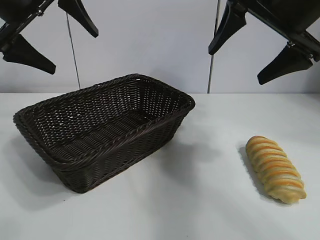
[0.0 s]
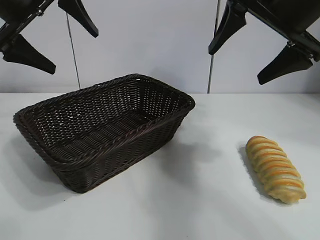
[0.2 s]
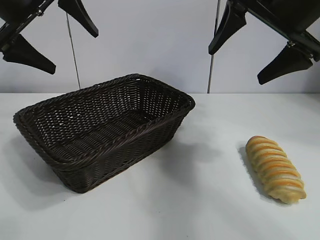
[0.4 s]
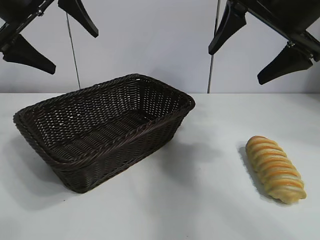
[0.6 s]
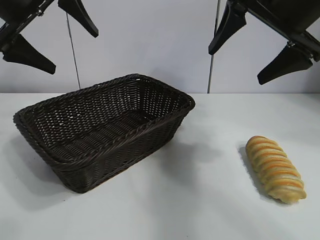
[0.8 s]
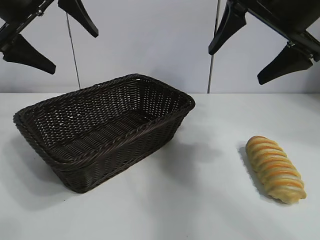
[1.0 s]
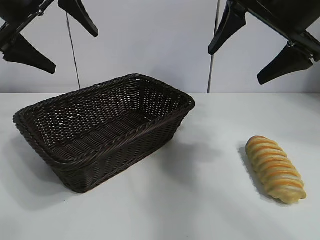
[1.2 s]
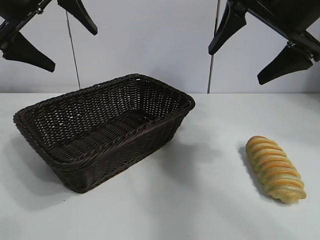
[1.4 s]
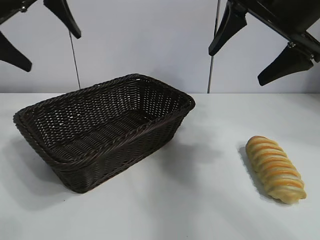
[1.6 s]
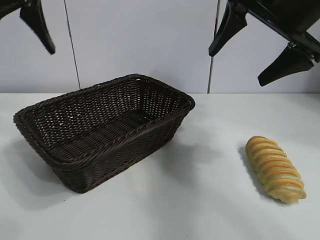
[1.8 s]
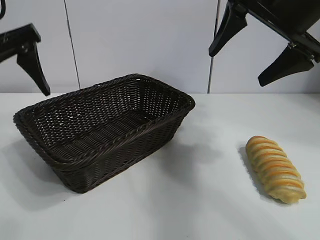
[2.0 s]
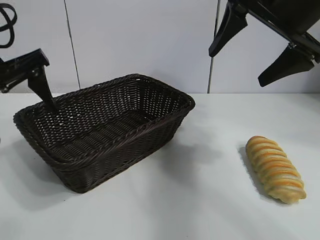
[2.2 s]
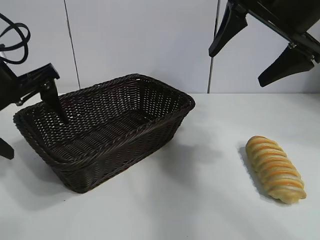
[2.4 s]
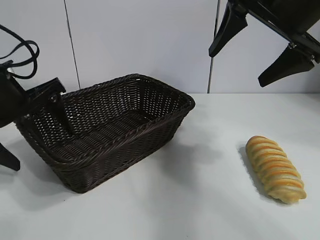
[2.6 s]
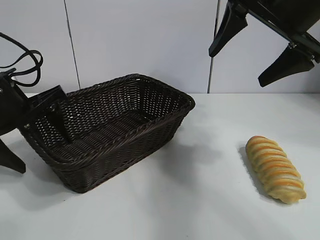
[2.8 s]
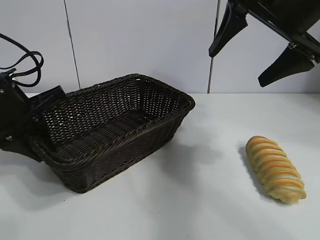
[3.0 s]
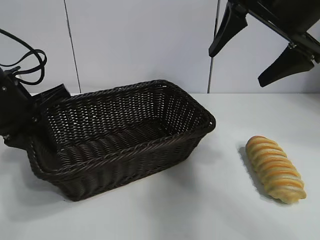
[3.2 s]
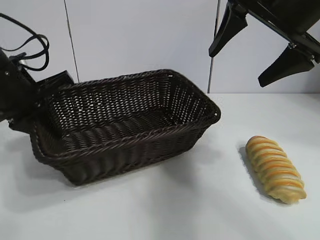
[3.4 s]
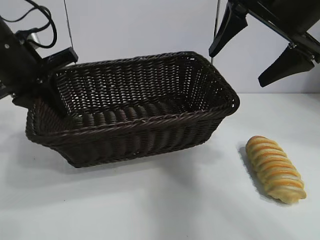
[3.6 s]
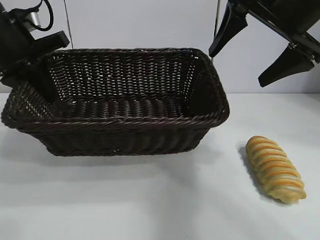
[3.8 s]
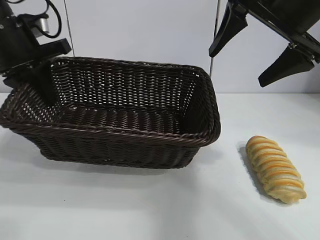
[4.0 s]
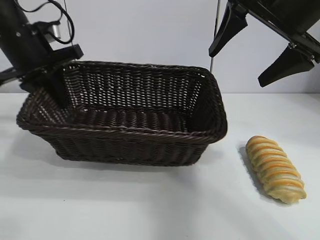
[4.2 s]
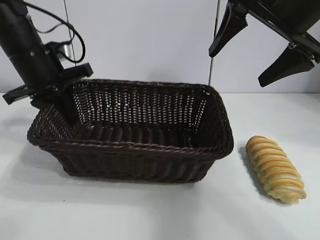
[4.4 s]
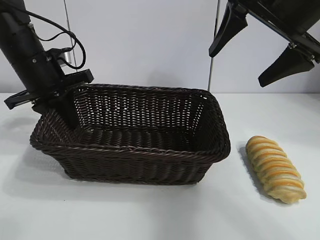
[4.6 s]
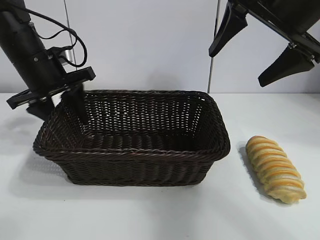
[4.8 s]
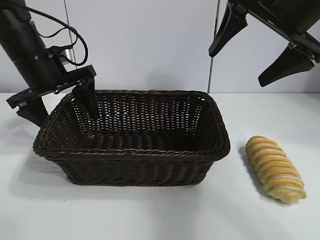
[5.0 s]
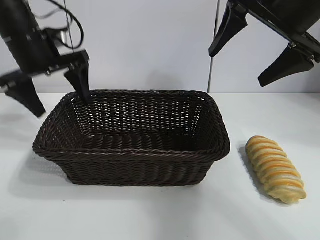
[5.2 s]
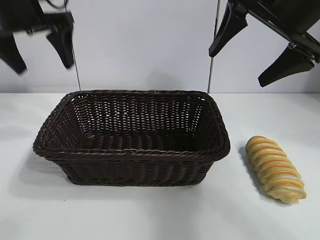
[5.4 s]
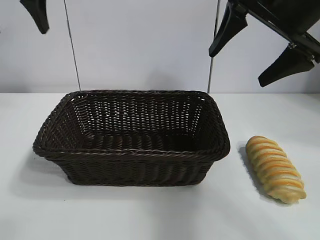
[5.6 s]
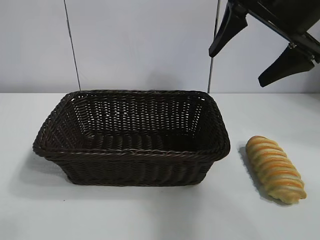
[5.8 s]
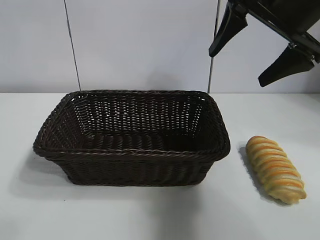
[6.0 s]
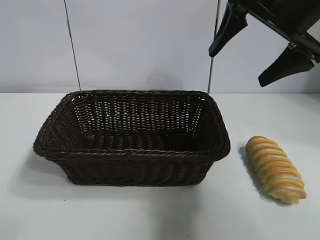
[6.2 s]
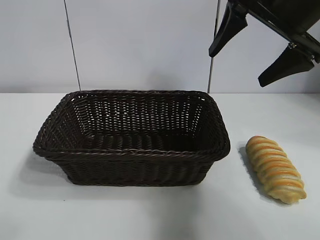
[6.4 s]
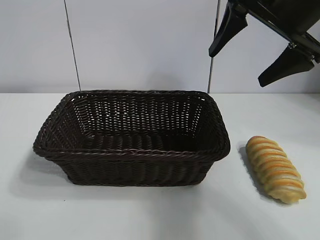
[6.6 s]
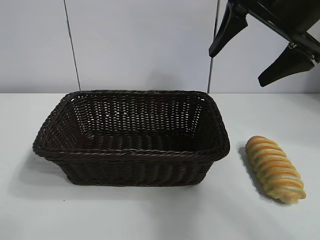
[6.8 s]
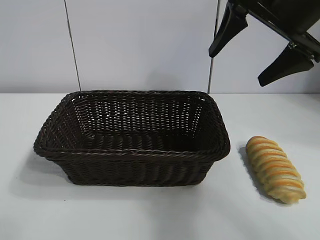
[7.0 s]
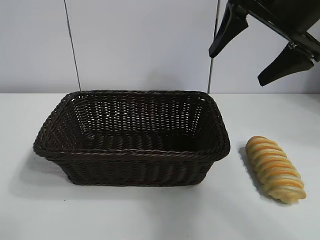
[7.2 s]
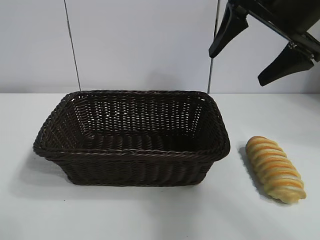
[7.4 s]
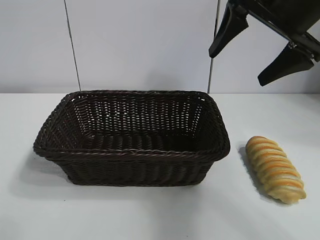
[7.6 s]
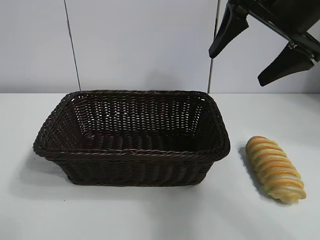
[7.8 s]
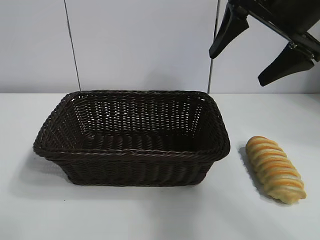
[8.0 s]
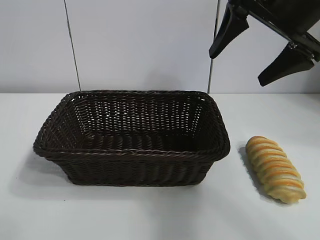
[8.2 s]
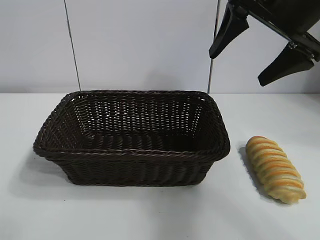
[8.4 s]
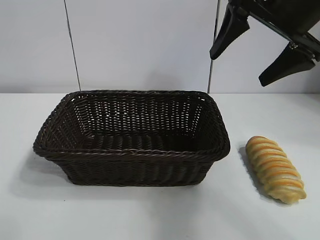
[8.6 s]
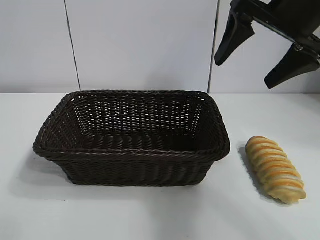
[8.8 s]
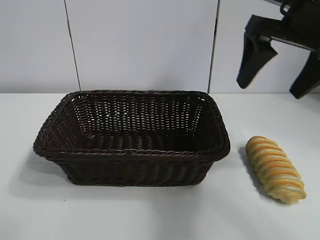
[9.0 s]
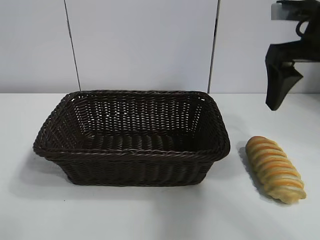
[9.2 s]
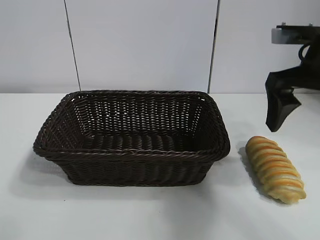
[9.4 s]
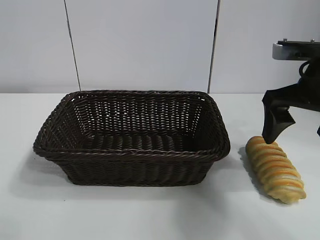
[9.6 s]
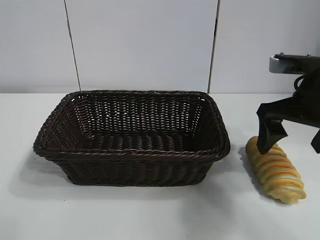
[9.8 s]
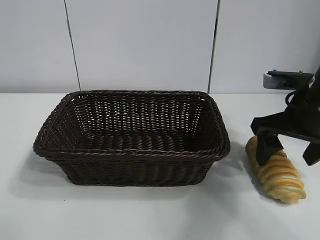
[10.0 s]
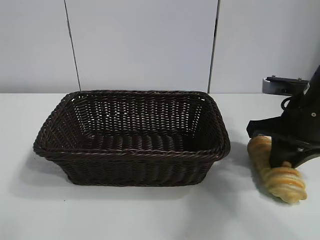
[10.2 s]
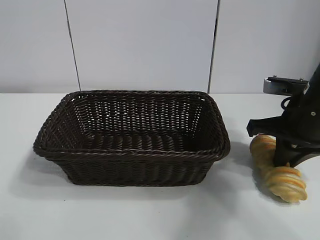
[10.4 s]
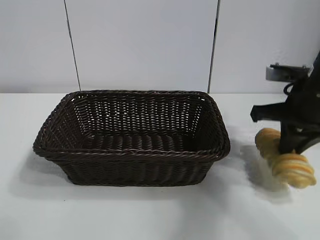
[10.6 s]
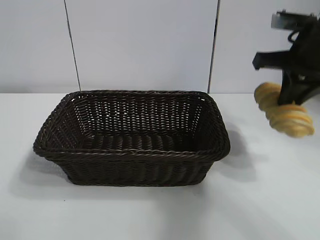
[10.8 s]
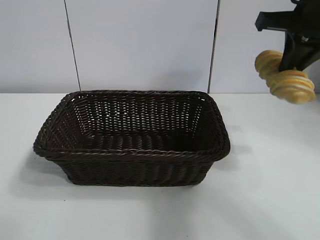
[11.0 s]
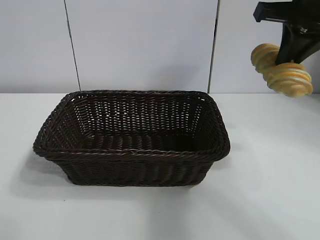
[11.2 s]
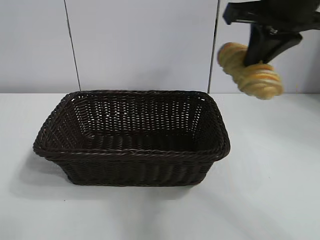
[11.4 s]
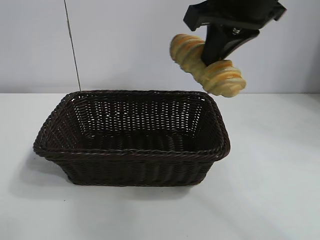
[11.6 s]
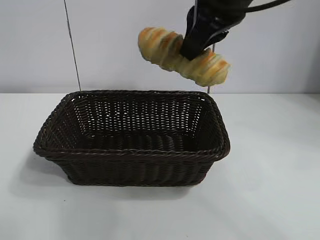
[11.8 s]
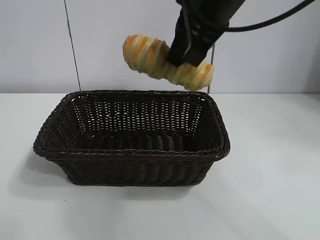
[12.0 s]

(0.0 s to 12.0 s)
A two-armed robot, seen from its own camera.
Task of the whole recording: pick up the long bread and put it into the basket.
Step, 1.4 s - 3.0 s: Grasp the basket with the left gripper.
Step, 3.2 s - 5.0 s: Place the basket in the center of the table with the left gripper.
Step, 5.2 s - 10.2 s: Grasp the long bread with right gripper.
